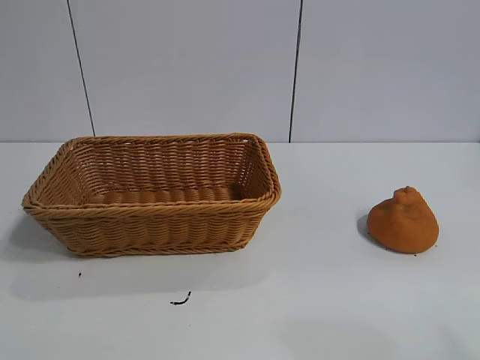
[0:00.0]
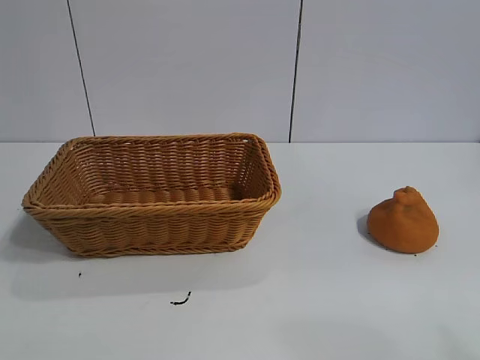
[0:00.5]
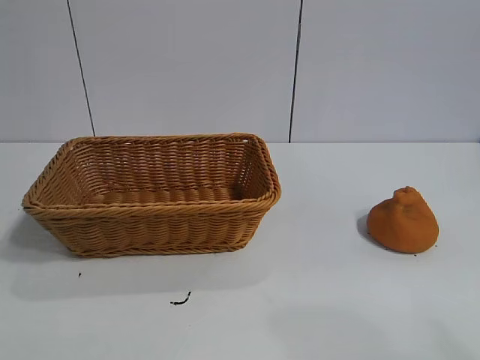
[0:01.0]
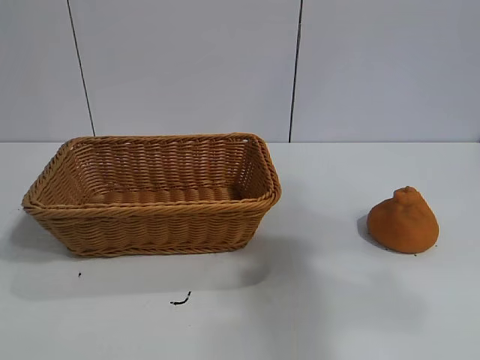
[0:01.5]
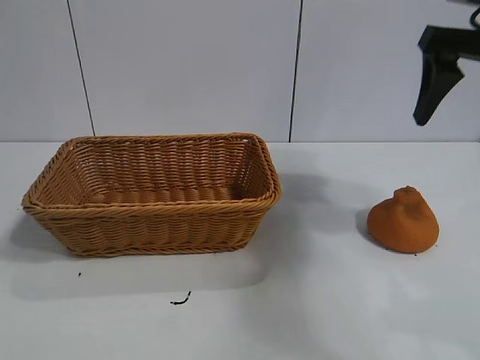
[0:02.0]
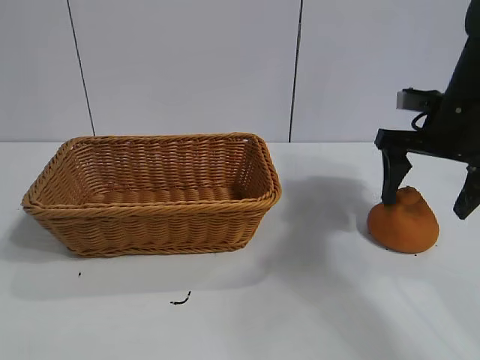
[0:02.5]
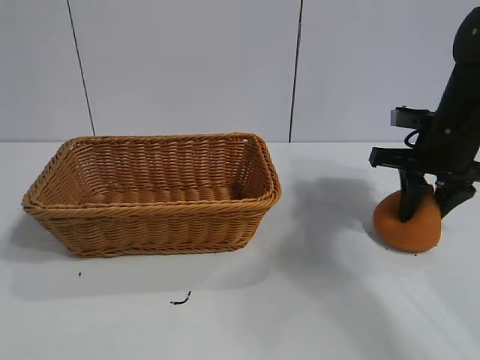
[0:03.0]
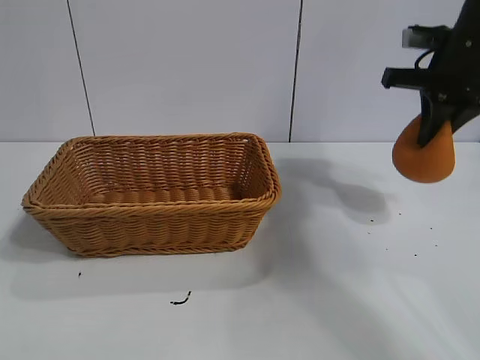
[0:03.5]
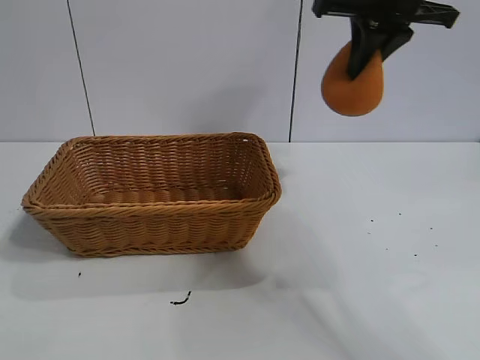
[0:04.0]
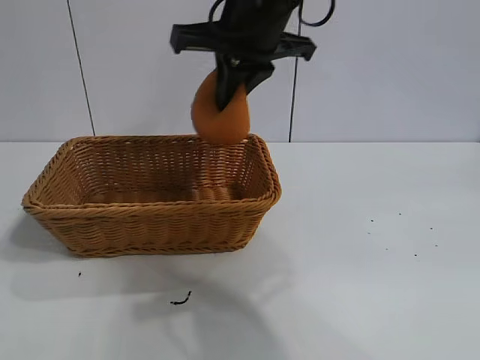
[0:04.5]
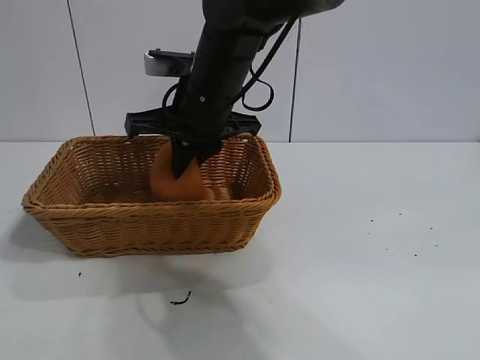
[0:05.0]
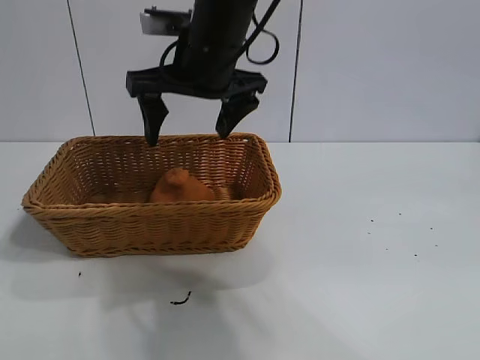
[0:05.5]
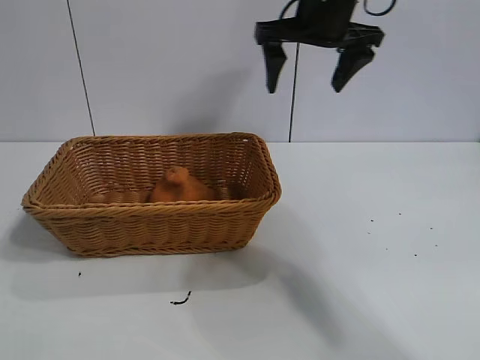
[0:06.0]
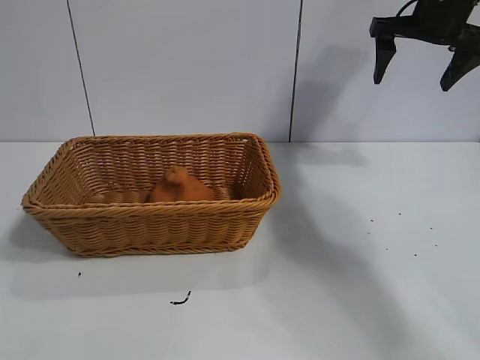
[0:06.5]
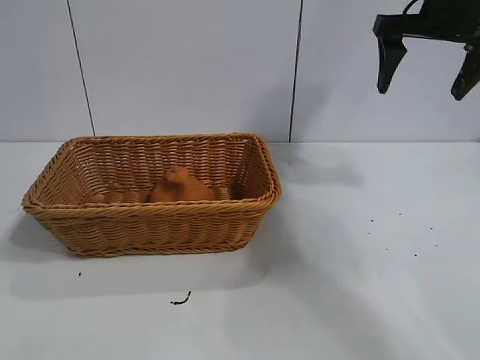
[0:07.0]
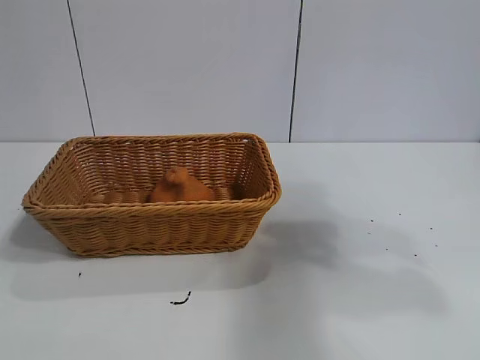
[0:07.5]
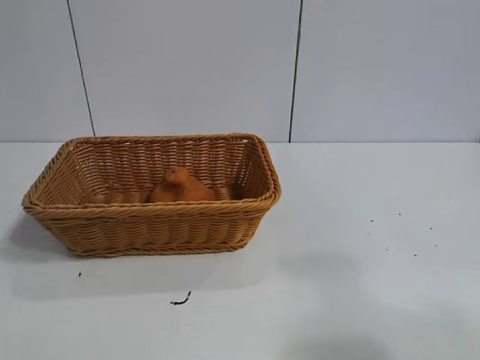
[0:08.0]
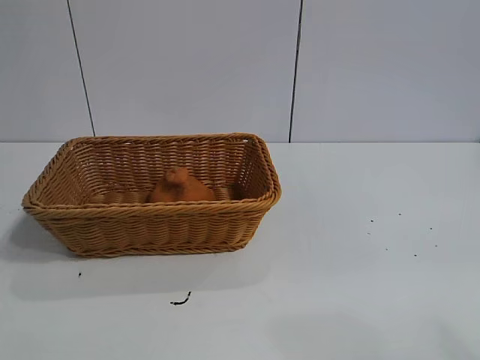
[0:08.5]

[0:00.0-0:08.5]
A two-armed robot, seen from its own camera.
Task of the whole recording: pick up the orange and put it into the basket.
Step, 0:01.0 to 0:03.0: Grasp the orange with right gripper.
Step, 0:03.5 to 0:05.5: Place the orange in the basket with right gripper.
